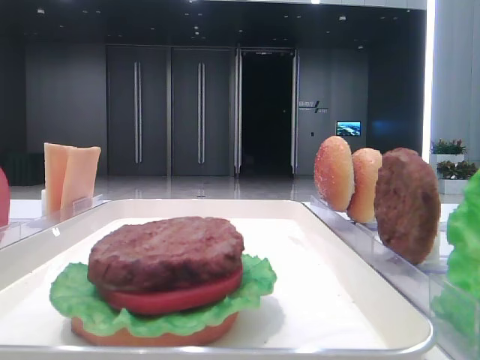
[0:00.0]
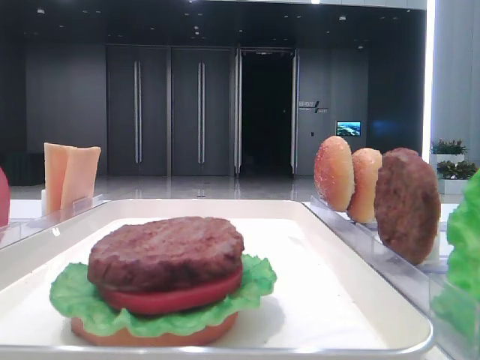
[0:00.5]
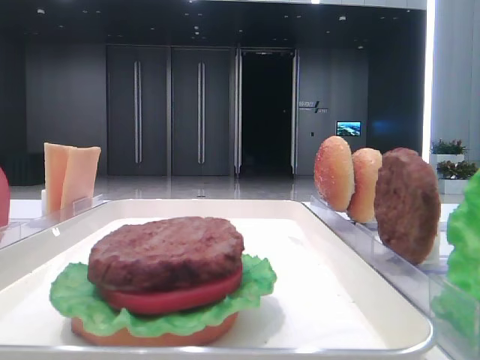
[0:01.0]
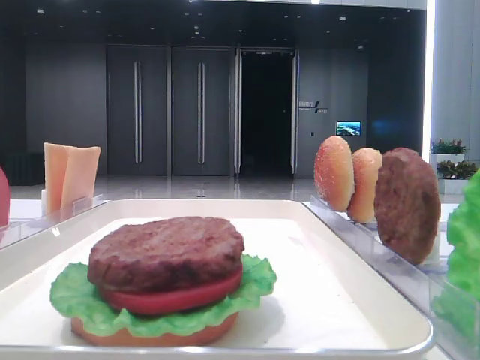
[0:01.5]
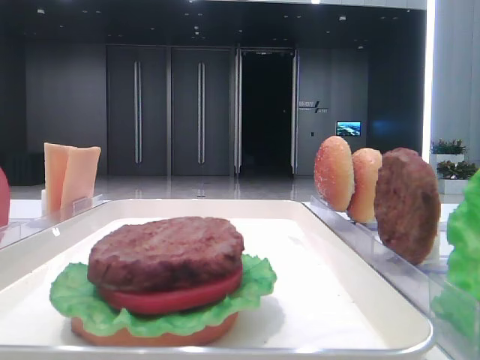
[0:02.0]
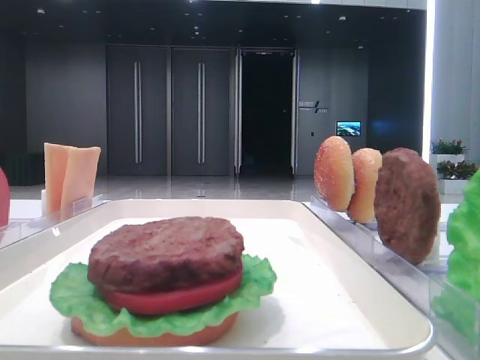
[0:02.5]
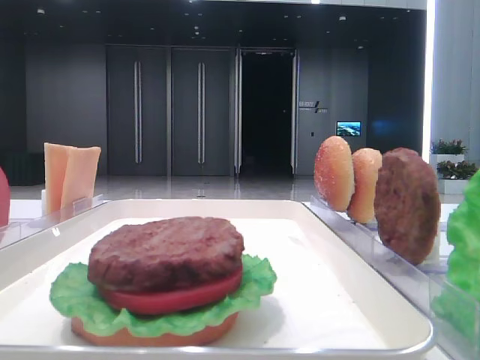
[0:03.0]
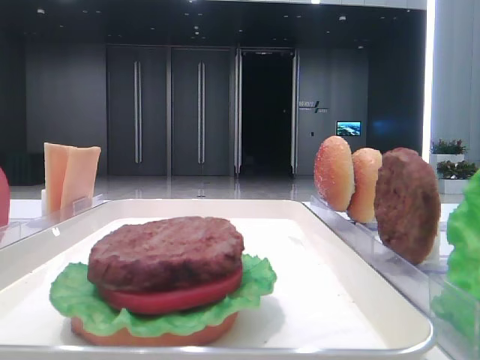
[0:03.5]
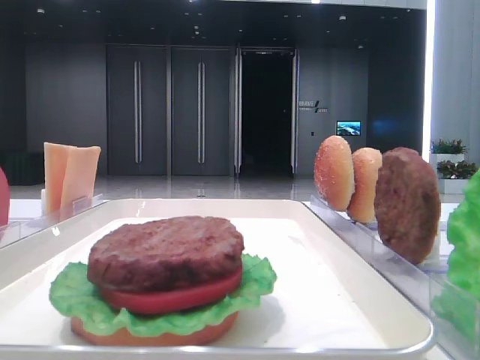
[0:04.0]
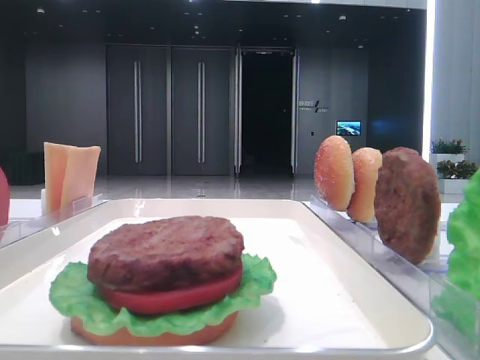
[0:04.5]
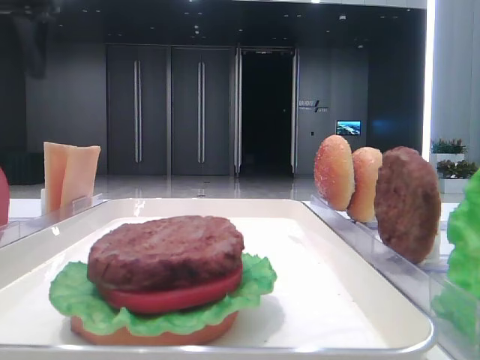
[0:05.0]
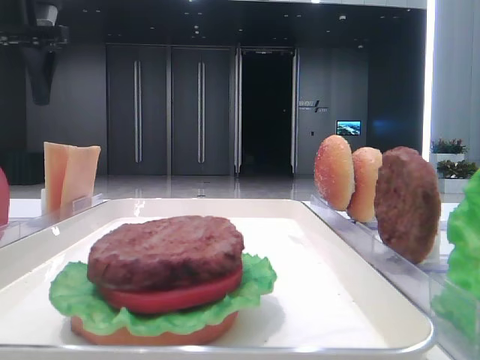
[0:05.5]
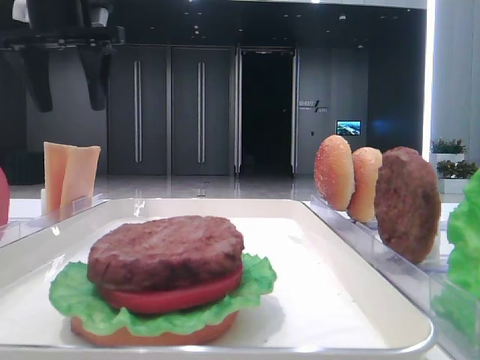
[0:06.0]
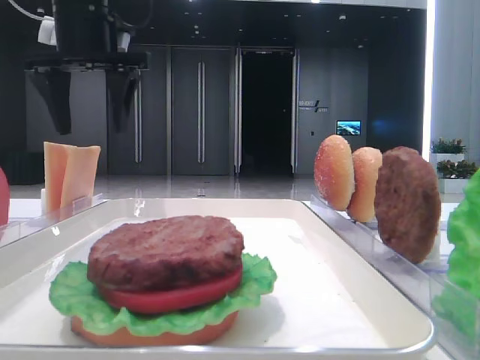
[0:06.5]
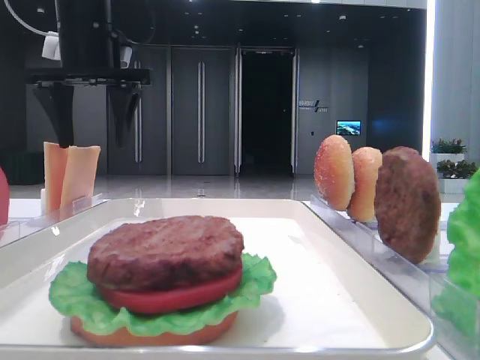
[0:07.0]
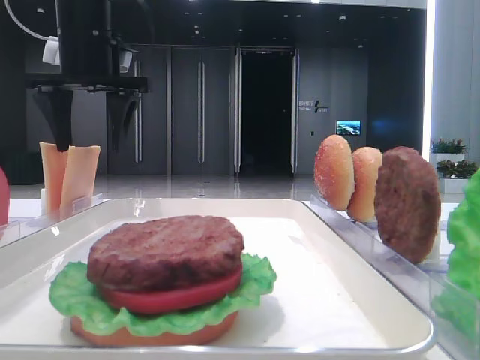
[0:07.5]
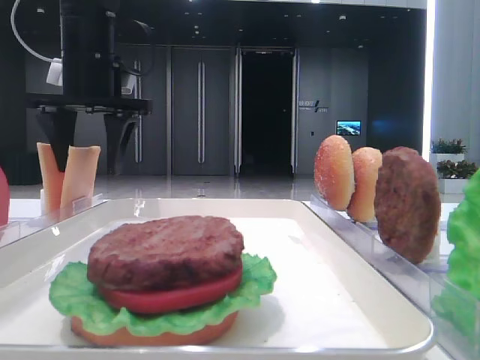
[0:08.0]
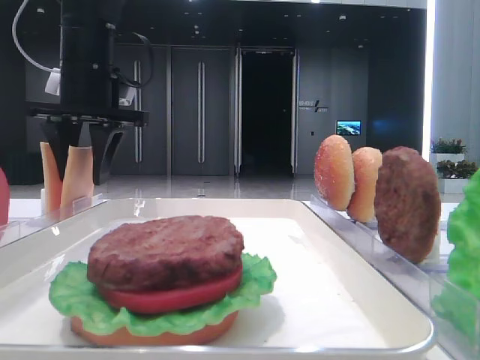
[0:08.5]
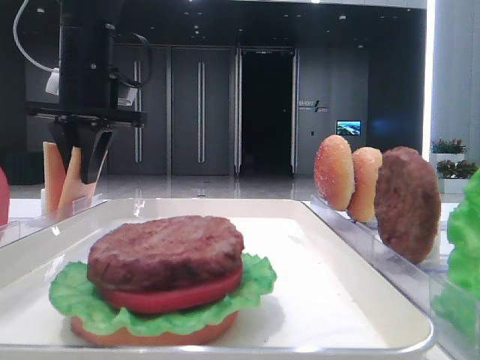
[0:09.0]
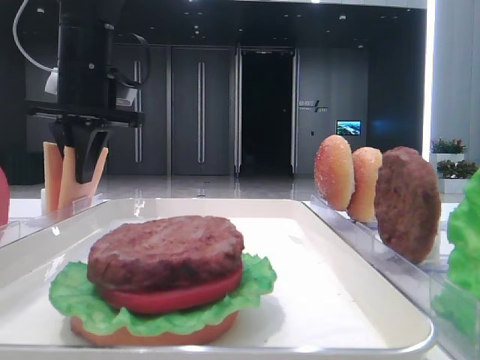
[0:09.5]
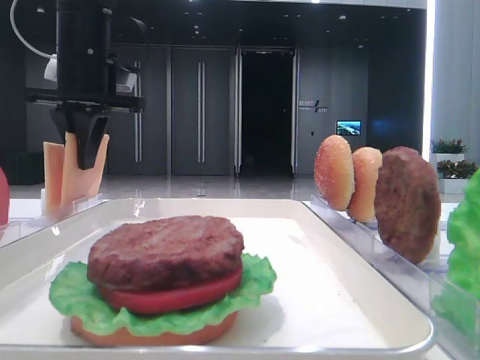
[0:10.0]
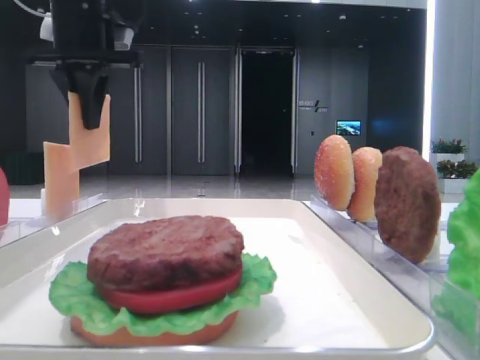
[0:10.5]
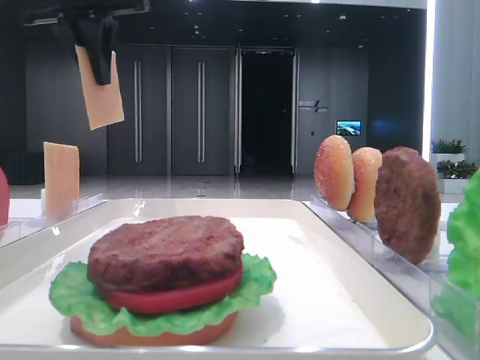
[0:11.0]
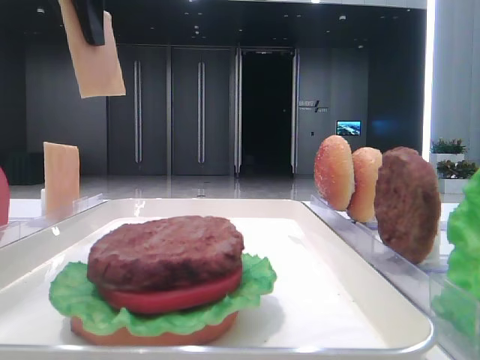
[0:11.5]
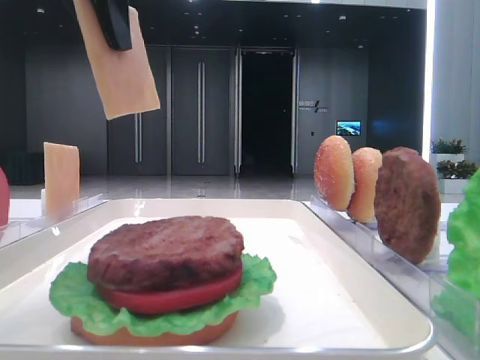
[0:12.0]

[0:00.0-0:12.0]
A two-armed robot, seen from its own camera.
Step, 0:00.0 to 0:09.5: Pick up the cheese slice with the left hand.
0:04.0 to 0:06.0: The left gripper shifts about 25 cm forward and to the right.
0:06.0 to 0:08.0: The left gripper heads downward, covering roughly 5 cm.
0:08.0 to 0:10.0: The left gripper closes its fingers.
0:10.0 to 0:12.0: The left gripper moves backward and upward, roughly 20 cm.

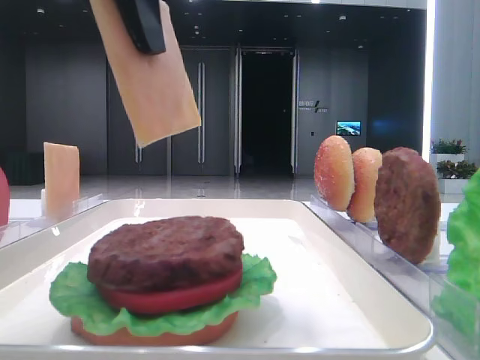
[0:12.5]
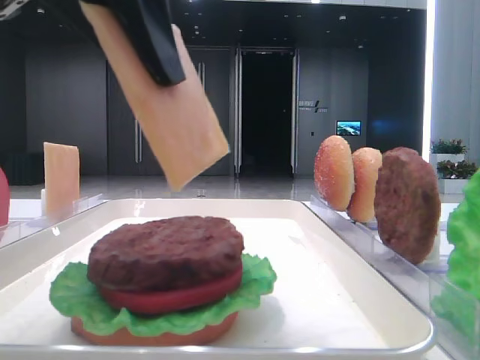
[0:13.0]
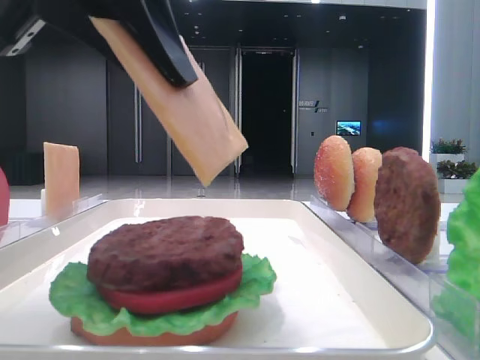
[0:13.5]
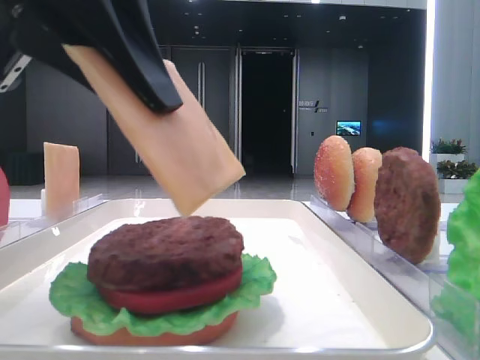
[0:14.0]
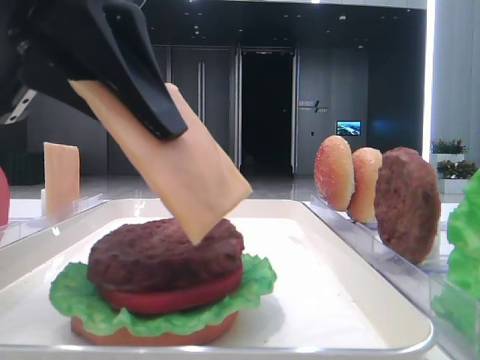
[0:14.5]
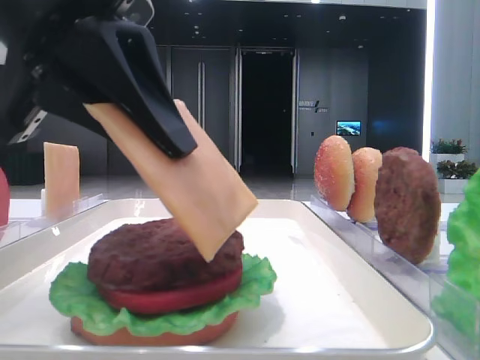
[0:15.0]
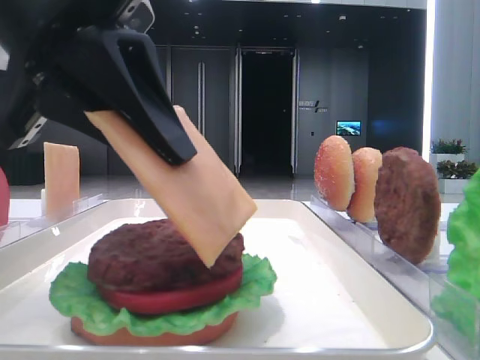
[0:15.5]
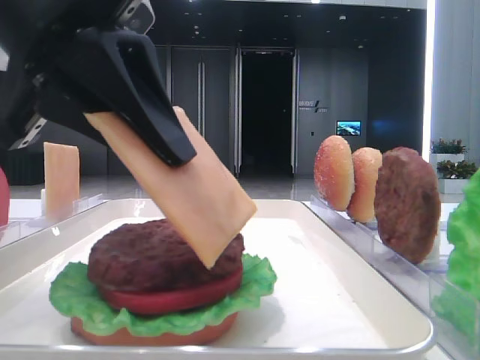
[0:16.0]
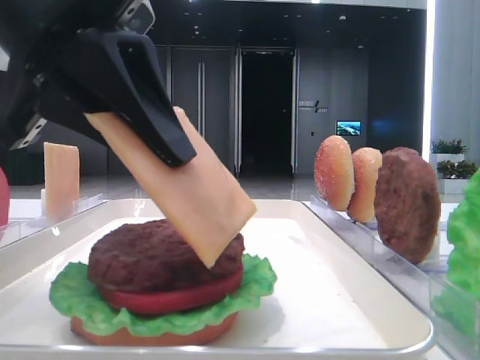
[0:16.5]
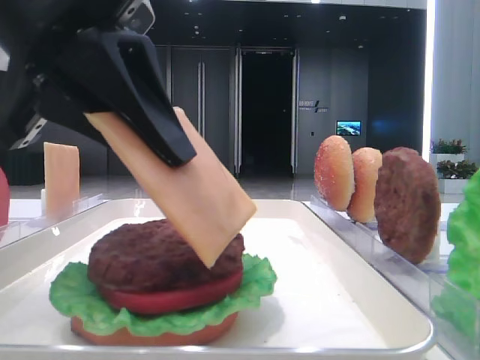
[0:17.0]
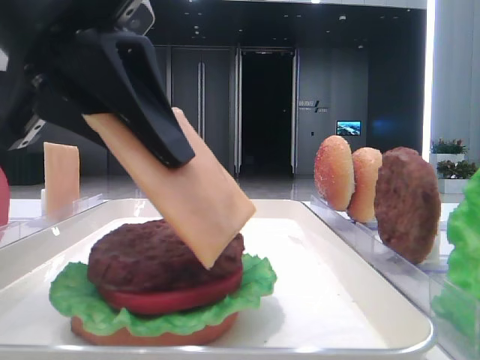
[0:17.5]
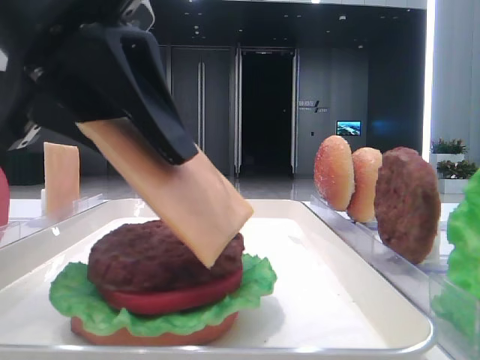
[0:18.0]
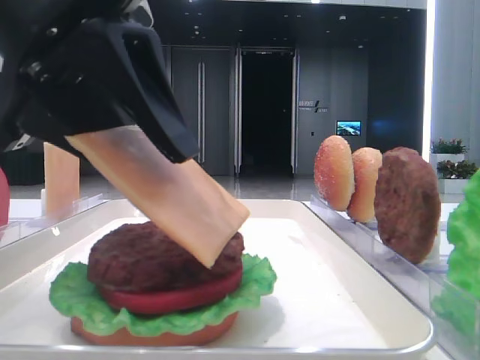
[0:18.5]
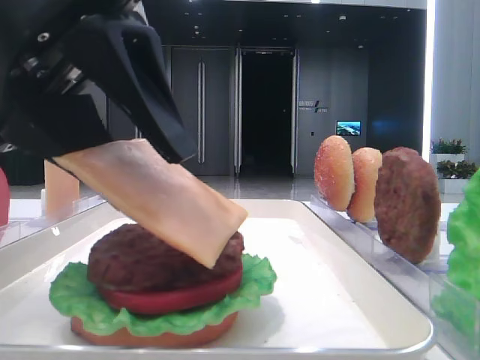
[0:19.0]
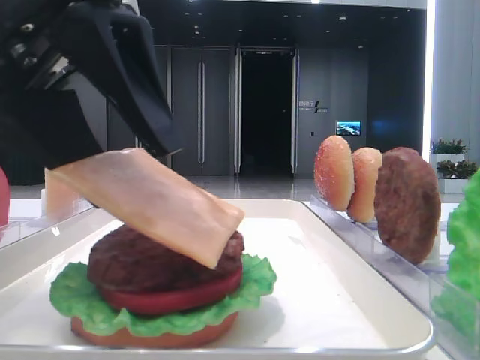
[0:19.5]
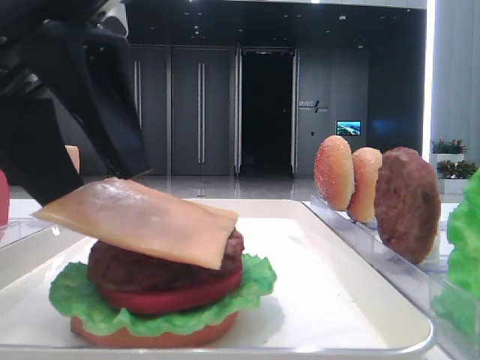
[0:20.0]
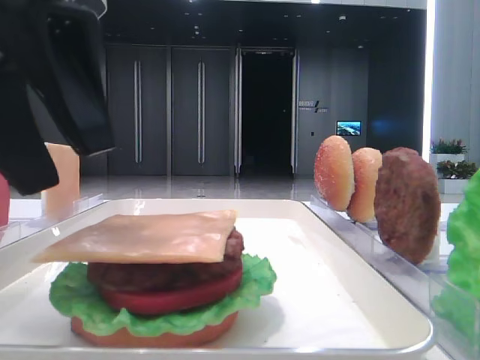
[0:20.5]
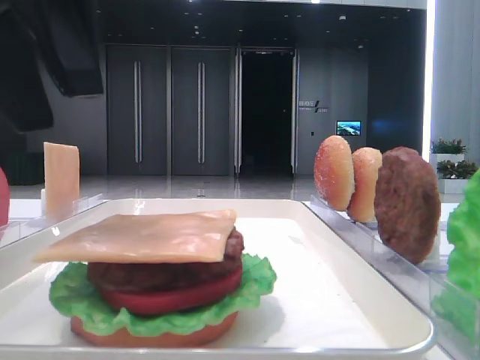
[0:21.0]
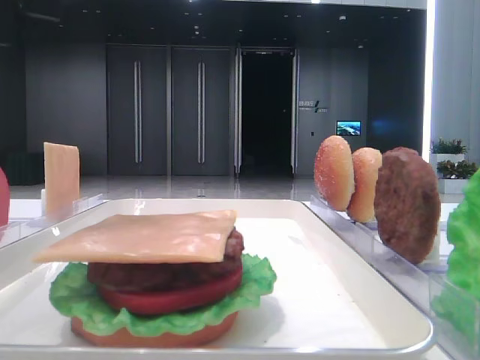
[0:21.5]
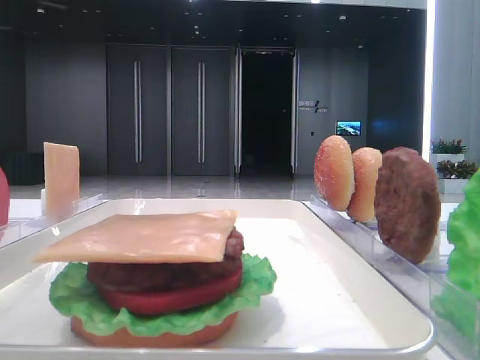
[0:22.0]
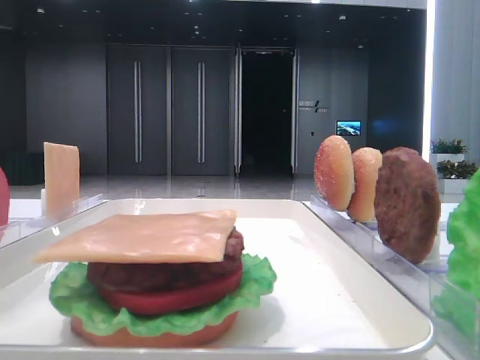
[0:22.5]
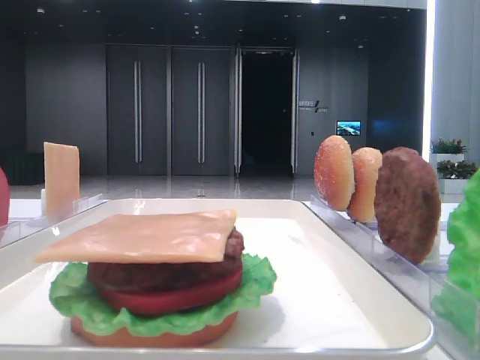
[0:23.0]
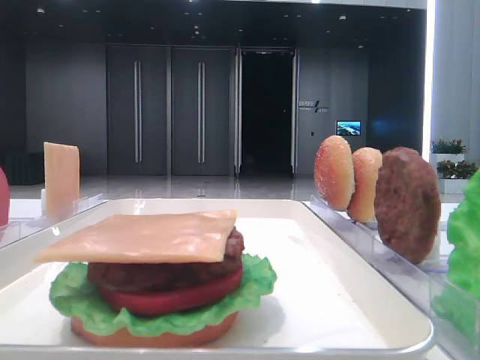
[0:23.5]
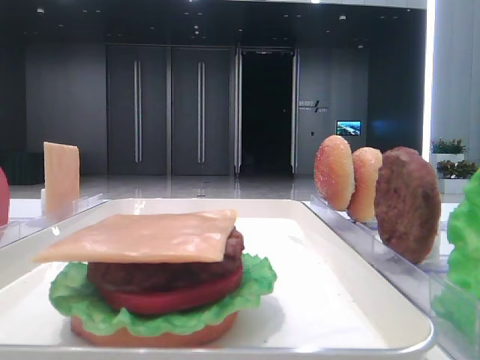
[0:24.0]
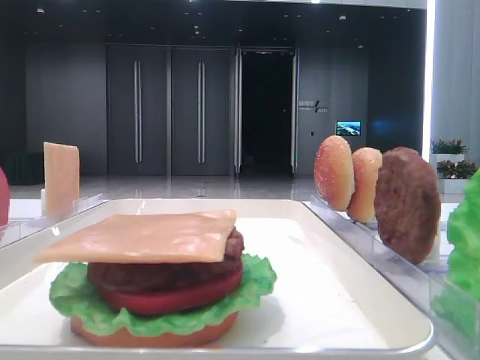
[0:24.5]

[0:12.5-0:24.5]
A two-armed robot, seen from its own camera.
Step, 0:12.5 to 0:20.0: Place the cheese slice on the patty with the left hand.
0:12.5 to 0:14.5: The left gripper shifts approximately 10 cm downward.
0:14.5 to 0:16.5: Neither gripper changes place.
0:16.5 to 0:18.5: The left gripper opens up.
0:18.5 to 0:20.5: The grippers stay close to where they were, moving slightly.
0:20.5 to 0:22.5: The left gripper shifts roughly 15 cm upward, forward and to the left.
0:22.5 to 0:24.5: The left gripper moves to the left, roughly 10 cm.

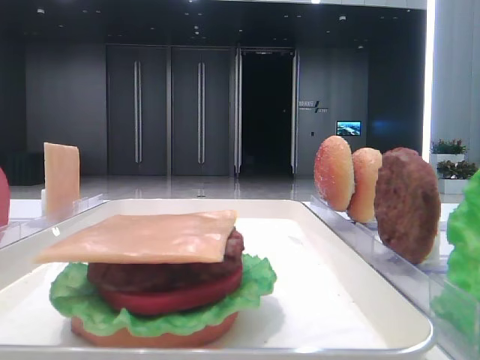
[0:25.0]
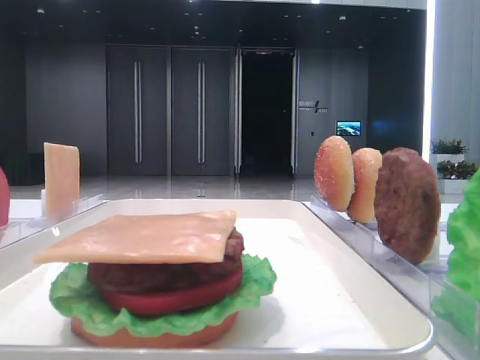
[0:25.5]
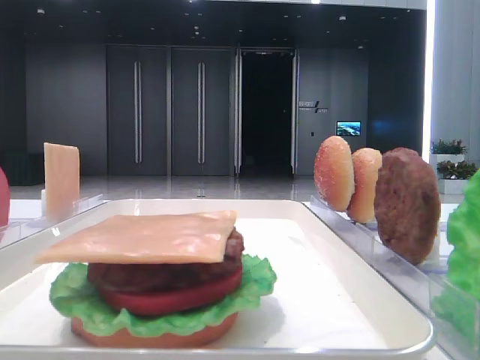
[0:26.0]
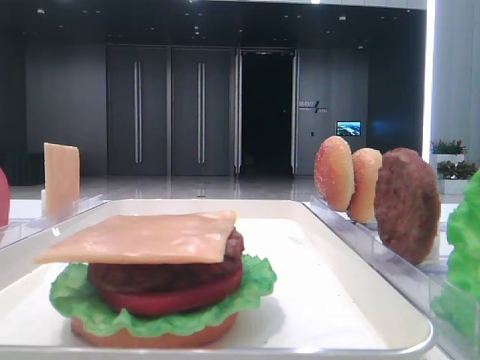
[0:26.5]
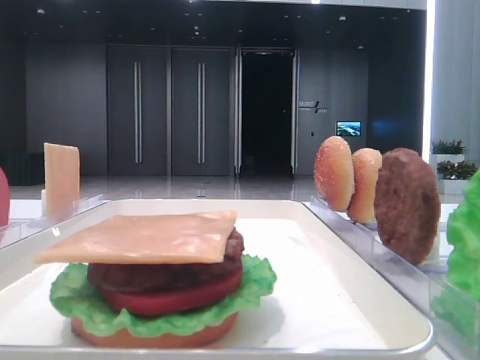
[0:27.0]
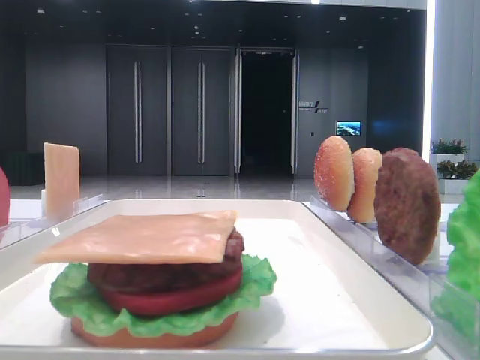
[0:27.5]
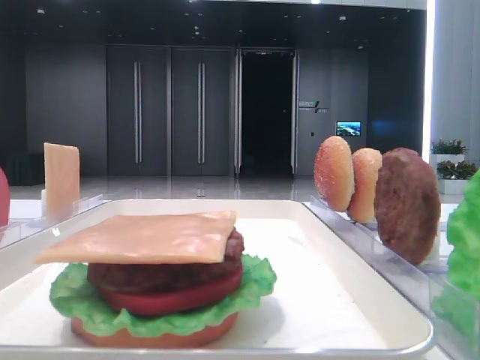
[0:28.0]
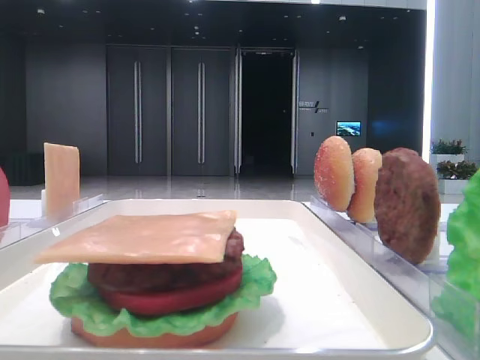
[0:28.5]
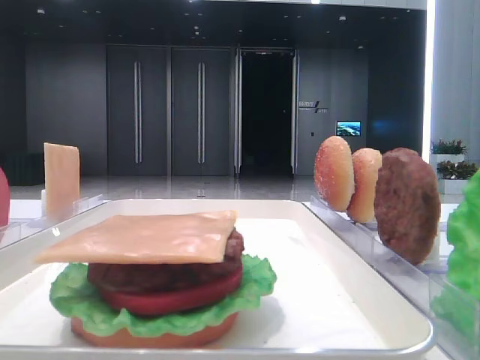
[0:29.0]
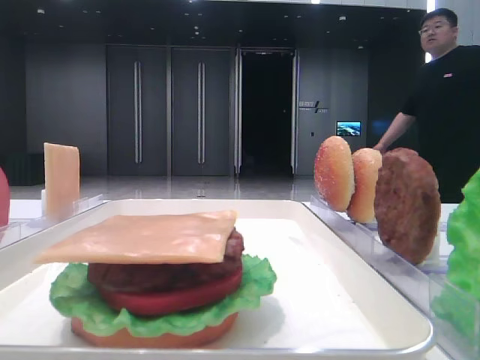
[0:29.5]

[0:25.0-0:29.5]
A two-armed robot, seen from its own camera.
0:27.0 to 0:29.5: Both grippers stay about where they are.
